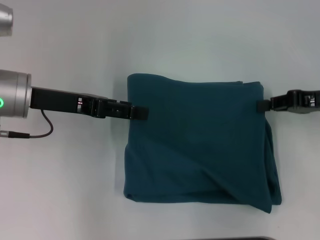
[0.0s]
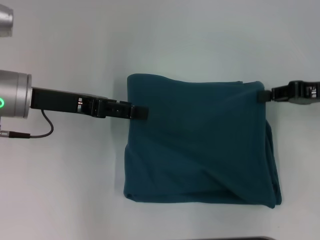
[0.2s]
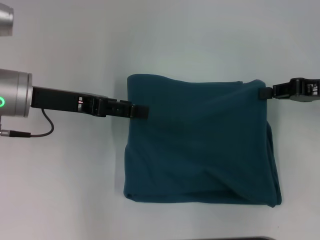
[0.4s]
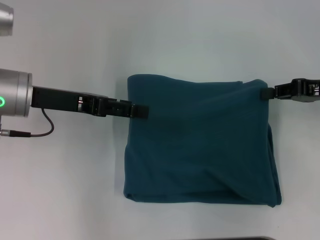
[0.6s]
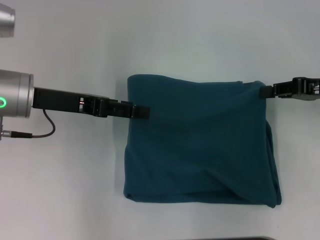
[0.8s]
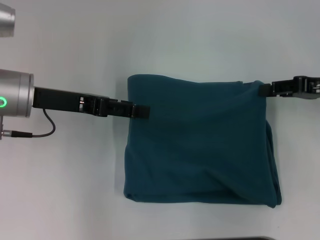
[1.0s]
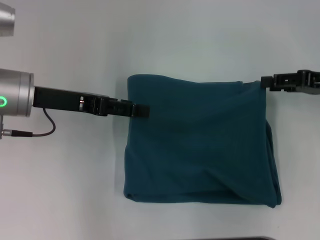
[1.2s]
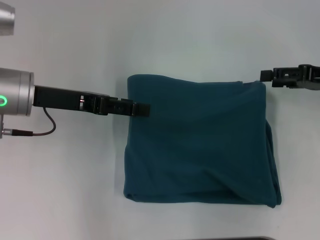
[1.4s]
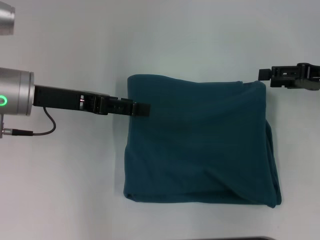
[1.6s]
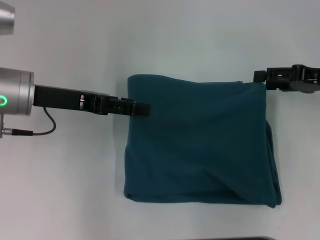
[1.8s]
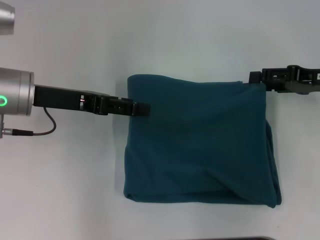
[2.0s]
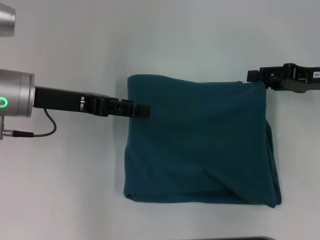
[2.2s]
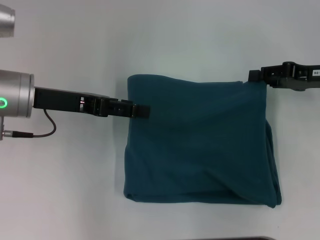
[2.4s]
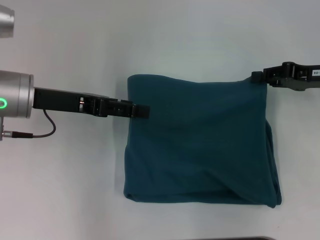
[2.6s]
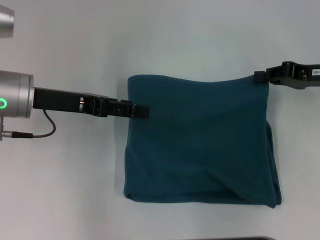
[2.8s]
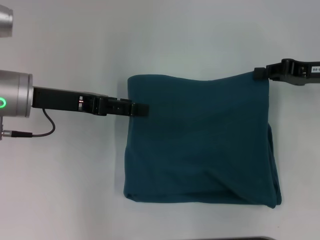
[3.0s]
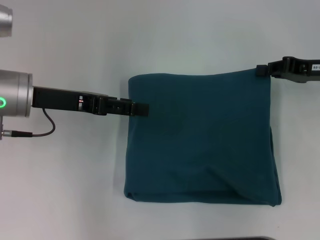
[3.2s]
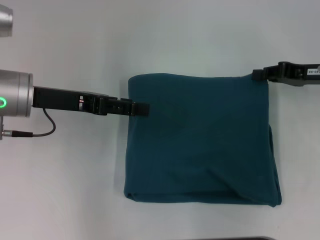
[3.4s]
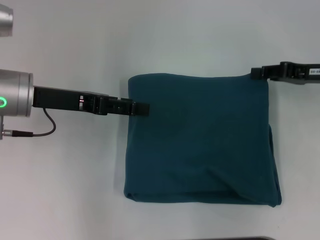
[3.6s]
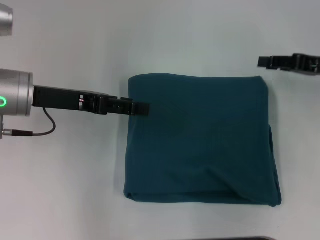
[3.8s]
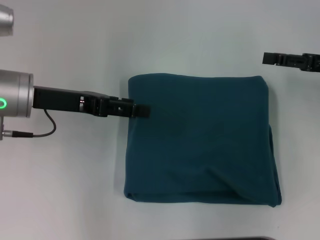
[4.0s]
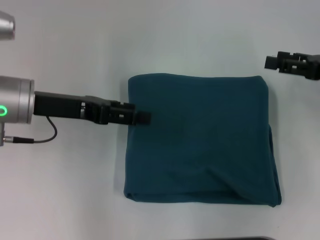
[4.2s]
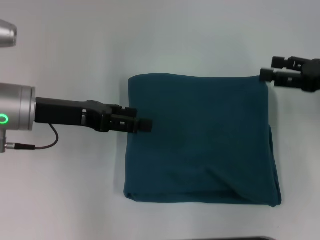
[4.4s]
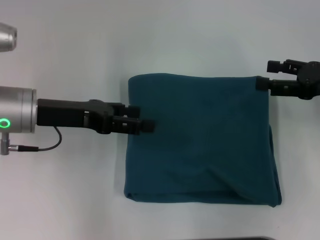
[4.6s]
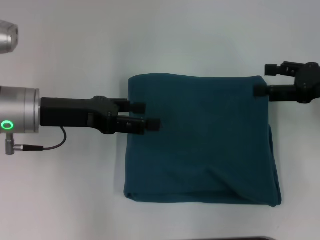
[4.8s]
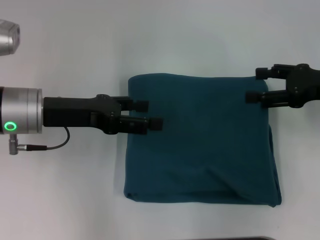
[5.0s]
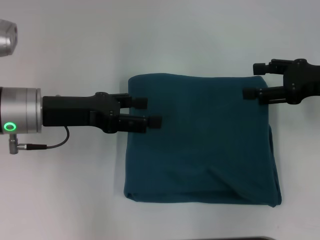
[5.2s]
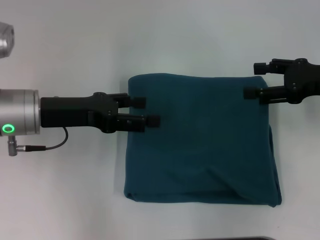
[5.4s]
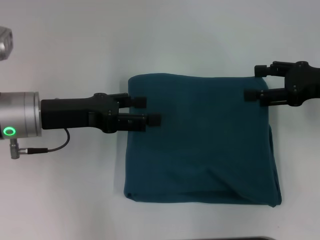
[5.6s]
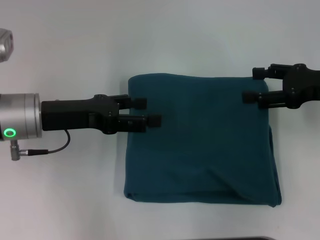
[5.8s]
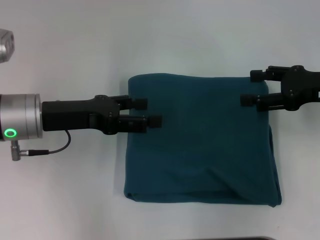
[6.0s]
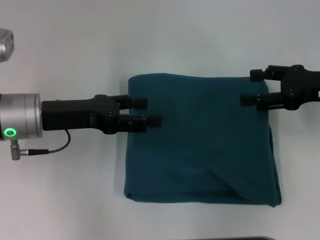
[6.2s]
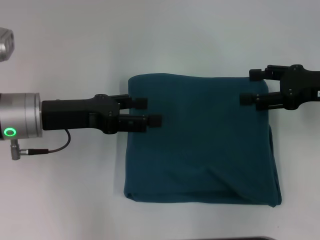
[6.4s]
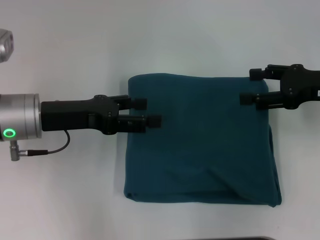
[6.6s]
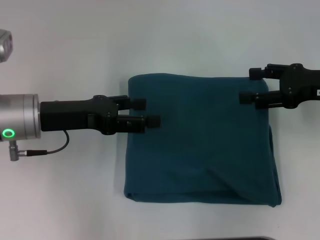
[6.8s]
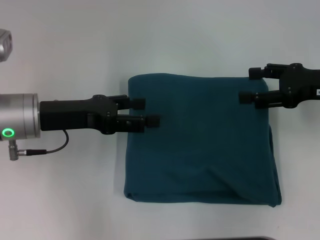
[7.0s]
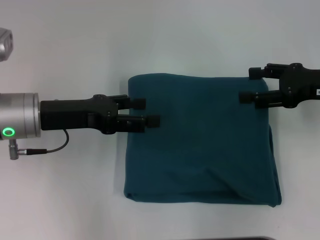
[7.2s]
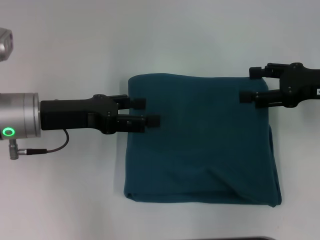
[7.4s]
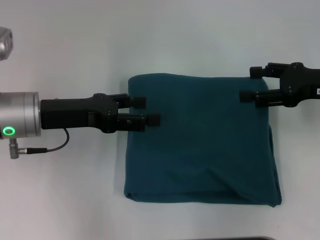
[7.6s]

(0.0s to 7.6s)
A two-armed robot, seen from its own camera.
0.0s - 1.6s: The right gripper opens its fingers.
1.6s - 3.0s: The right gripper closes.
3.0s - 4.6s: The right gripper opens its fingers.
4.6s - 6.0s: The grippers stay close to where they were, moving slightly.
6.0s - 7.6s: The two grippers keep their place.

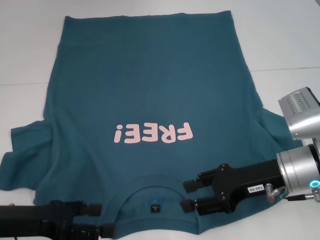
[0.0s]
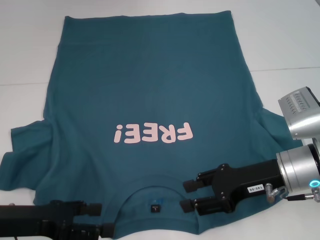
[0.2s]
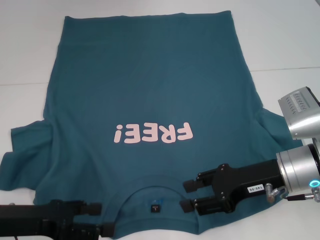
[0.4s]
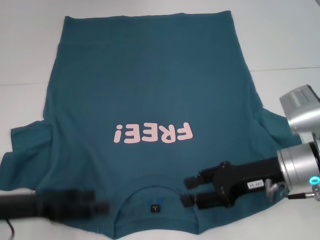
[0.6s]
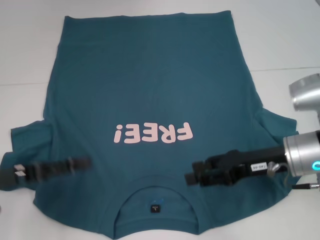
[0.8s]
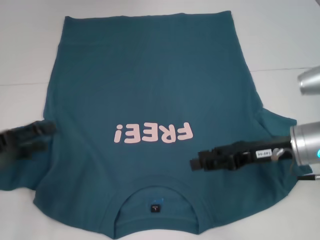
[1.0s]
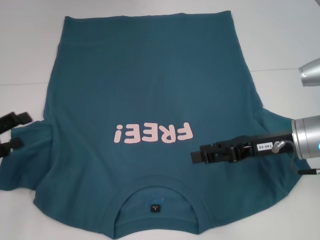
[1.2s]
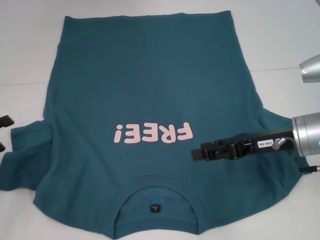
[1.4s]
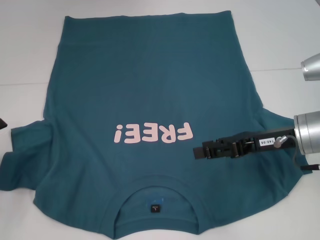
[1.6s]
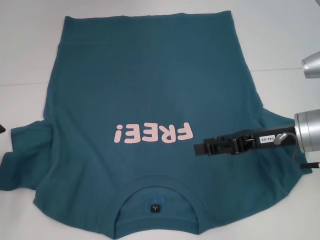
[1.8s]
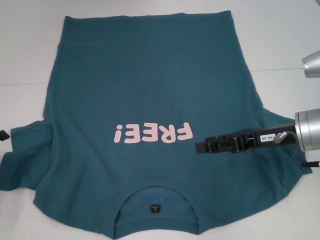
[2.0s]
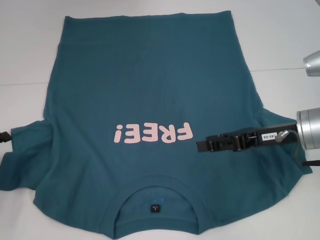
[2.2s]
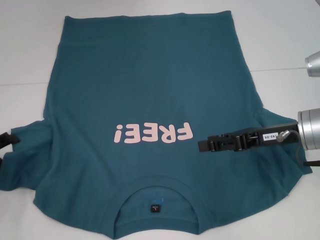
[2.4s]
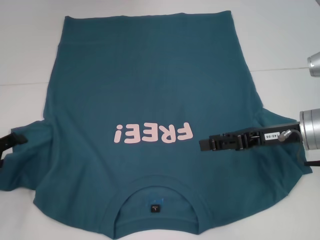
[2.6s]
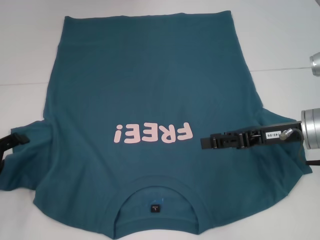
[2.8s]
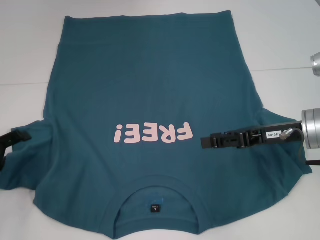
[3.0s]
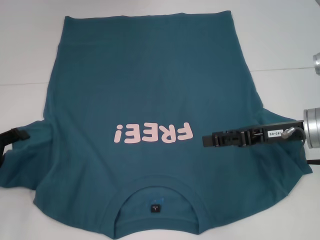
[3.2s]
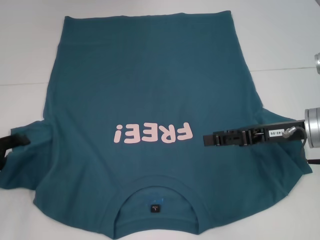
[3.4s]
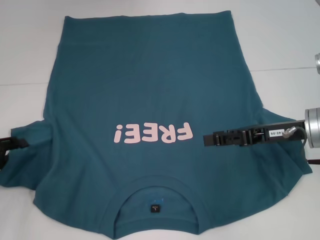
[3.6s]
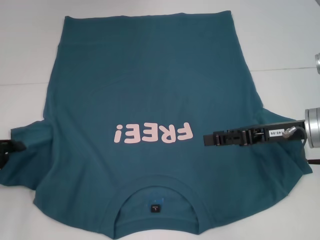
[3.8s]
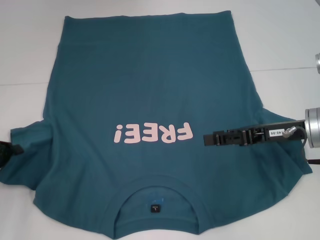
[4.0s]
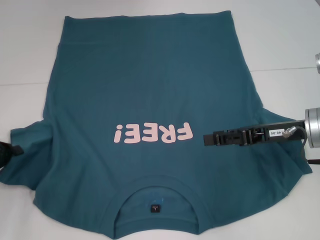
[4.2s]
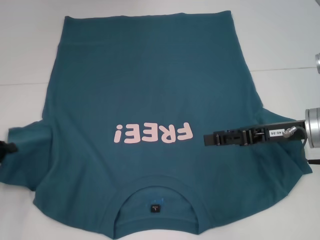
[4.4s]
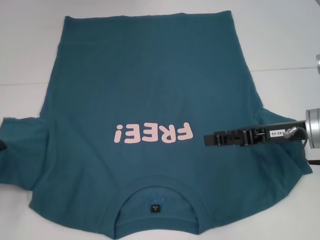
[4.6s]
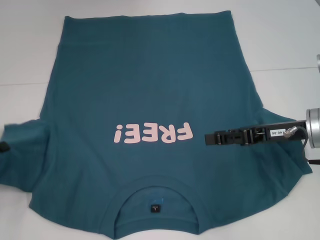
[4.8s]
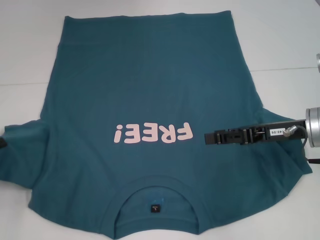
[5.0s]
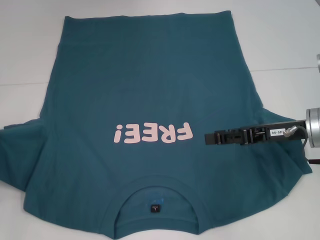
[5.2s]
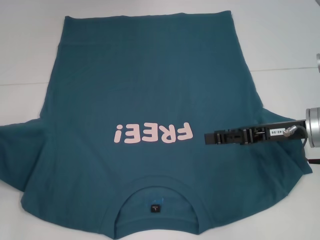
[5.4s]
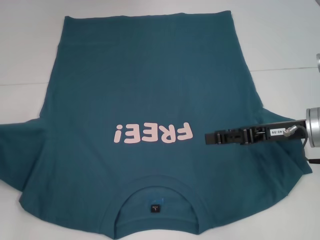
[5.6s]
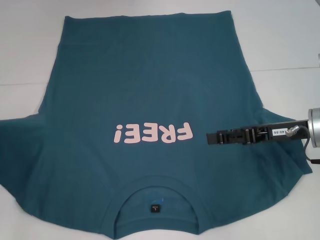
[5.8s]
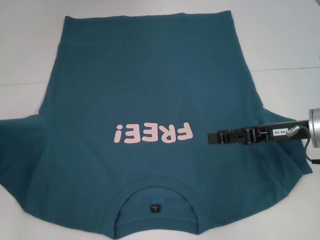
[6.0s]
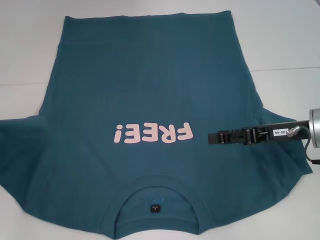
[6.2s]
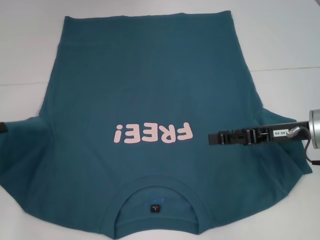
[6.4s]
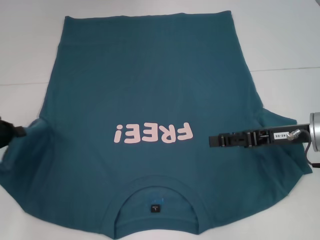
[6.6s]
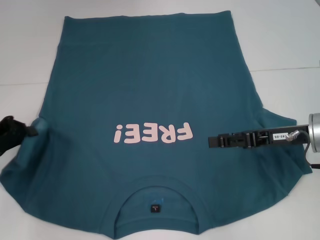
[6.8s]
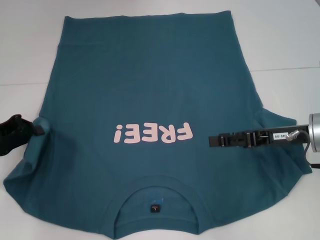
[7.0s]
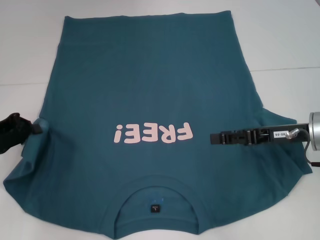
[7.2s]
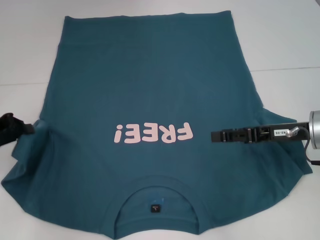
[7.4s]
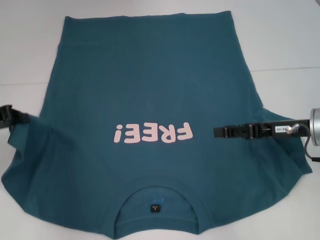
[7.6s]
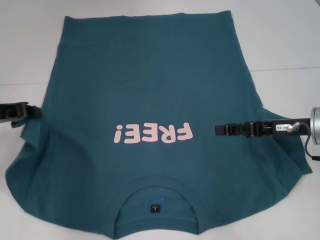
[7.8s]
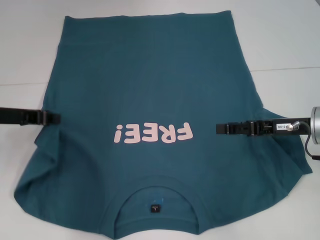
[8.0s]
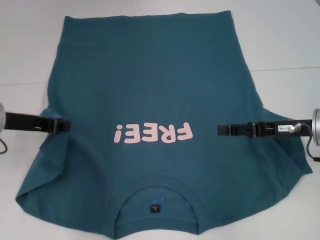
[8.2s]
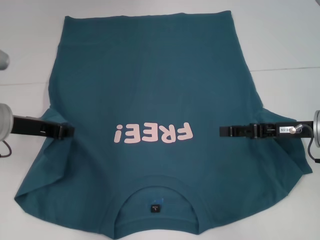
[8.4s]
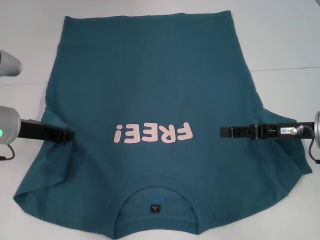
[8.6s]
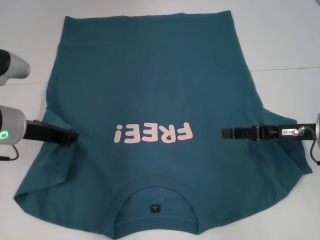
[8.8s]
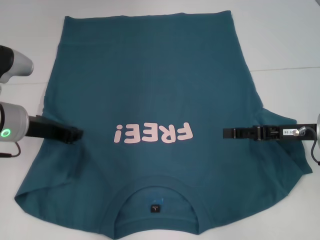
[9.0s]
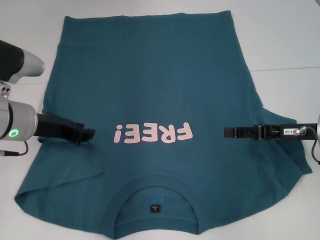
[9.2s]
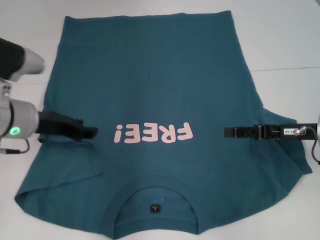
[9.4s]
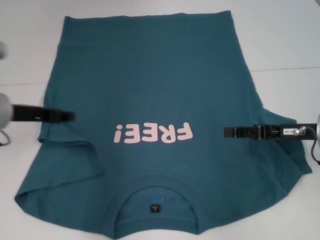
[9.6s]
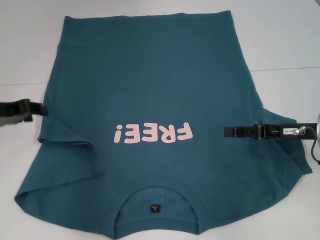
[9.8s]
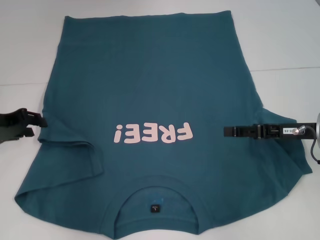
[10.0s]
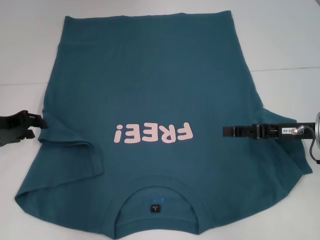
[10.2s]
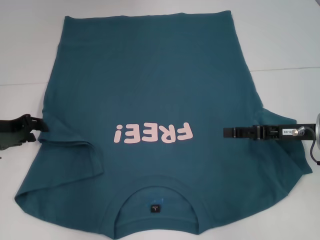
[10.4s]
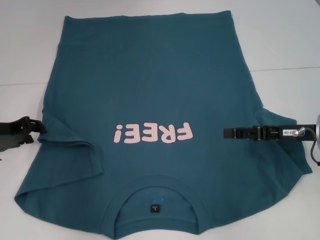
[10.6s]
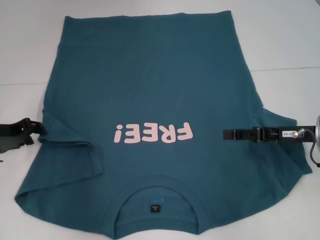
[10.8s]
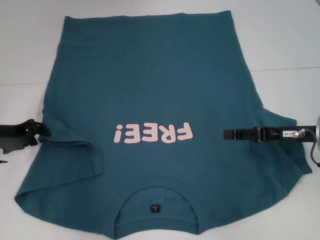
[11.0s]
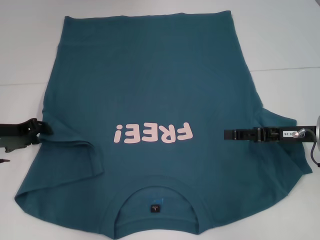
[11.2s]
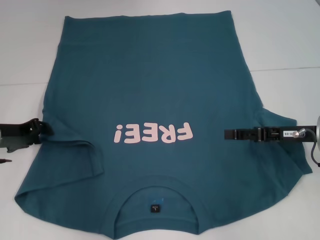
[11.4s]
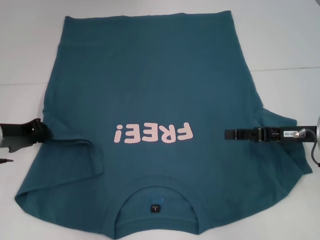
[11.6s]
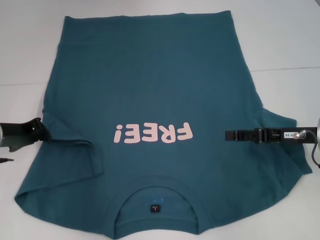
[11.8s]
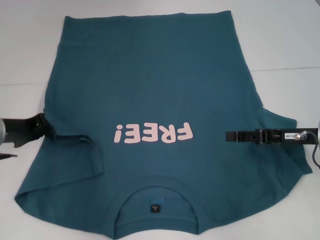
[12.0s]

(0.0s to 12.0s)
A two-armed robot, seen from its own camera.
0.0s - 1.6s: The left gripper shifts approximately 10 cm to the left.
1.6s - 3.0s: The grippers make only small movements.
3.0s - 4.4s: The left gripper closes up.
4.4s - 6.0s: The left gripper moves roughly 5 cm.
6.0s - 7.6s: The left gripper travels to the right by about 5 cm.
7.6s - 9.0s: The left gripper travels to the right by approximately 10 cm.
9.0s - 10.4s: The left gripper shifts roughly 5 cm to the left, and opens.
10.4s - 12.0s: The left gripper closes its fingers.

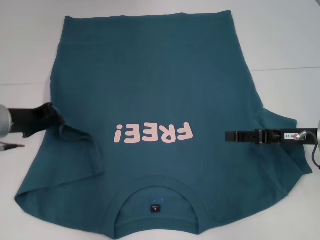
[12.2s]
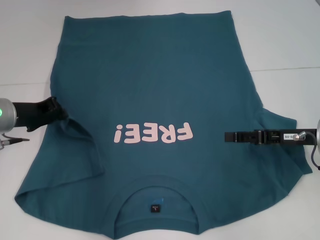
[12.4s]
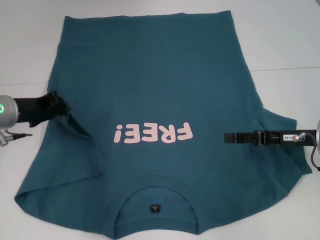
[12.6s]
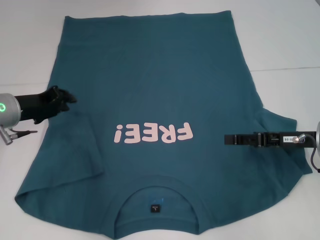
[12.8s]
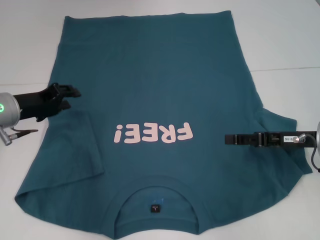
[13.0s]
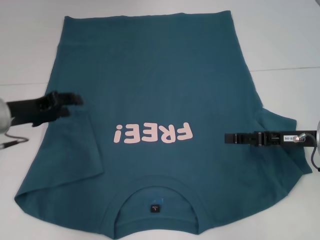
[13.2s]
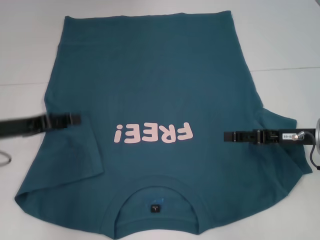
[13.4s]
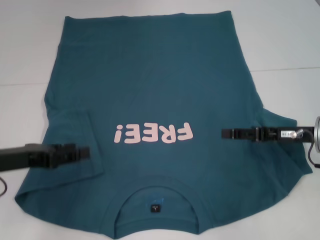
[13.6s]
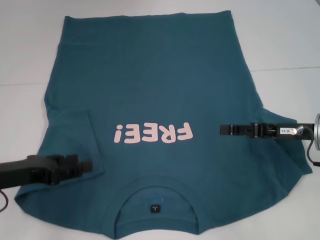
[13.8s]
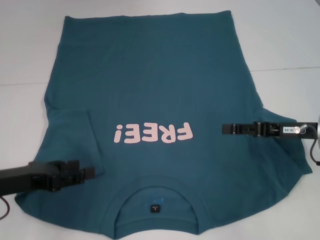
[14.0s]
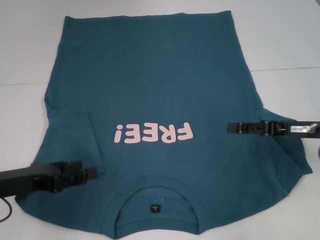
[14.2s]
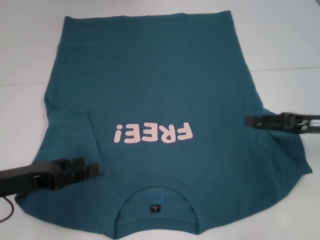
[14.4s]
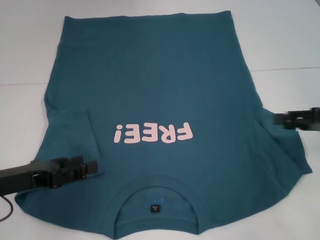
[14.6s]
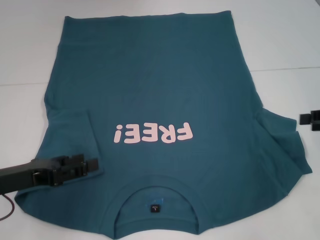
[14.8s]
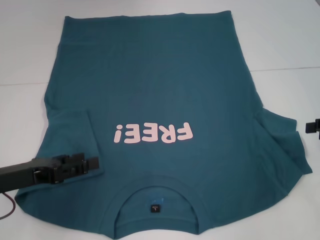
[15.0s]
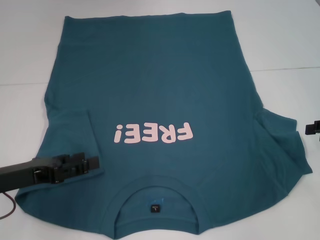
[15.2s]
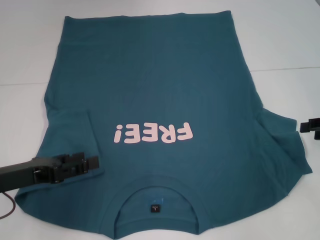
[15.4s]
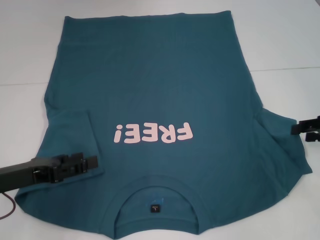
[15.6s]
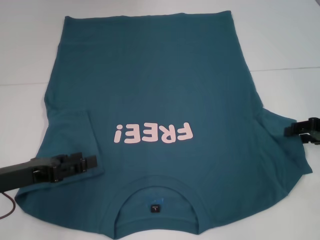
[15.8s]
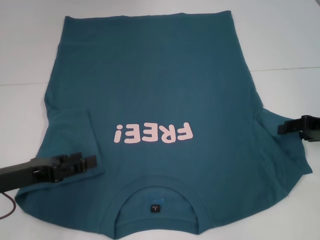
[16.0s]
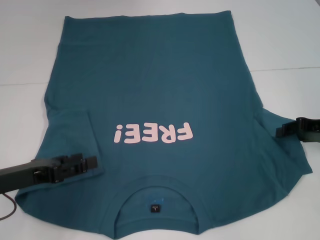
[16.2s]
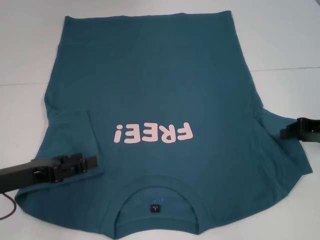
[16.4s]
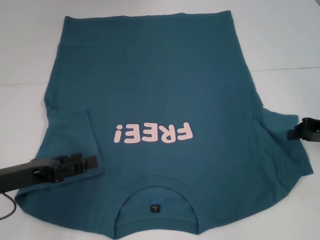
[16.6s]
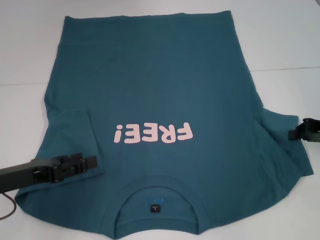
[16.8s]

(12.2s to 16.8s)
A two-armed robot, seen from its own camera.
12.2s - 13.8s: The left gripper is displaced backward by some 10 cm, and opens its fingers.
13.8s - 15.2s: The right gripper heads to the right, covering some 10 cm.
15.2s - 16.8s: The right gripper moves approximately 5 cm, and closes.
